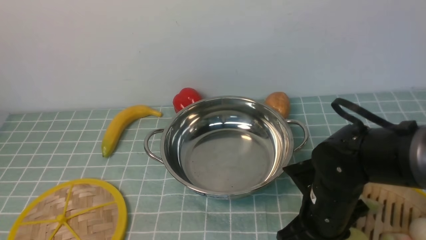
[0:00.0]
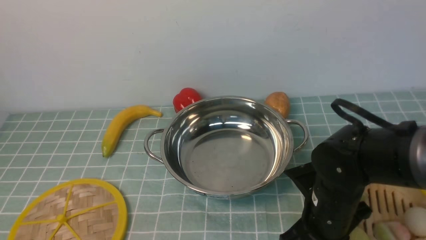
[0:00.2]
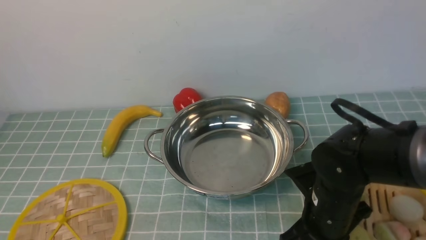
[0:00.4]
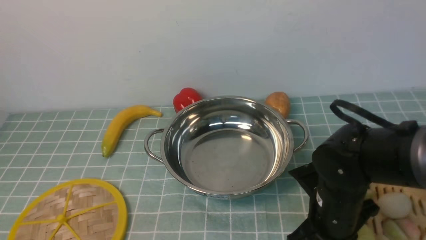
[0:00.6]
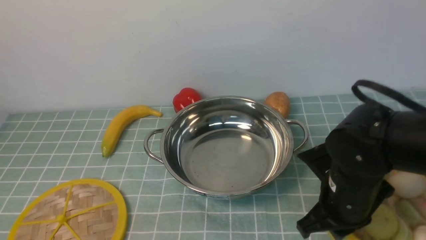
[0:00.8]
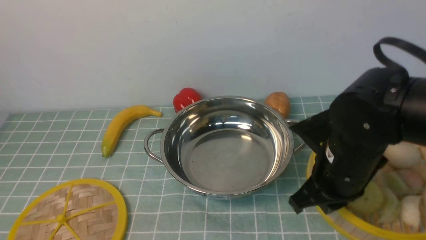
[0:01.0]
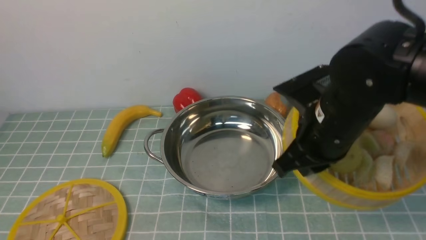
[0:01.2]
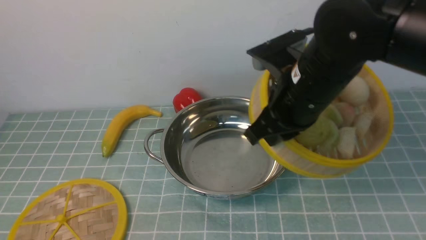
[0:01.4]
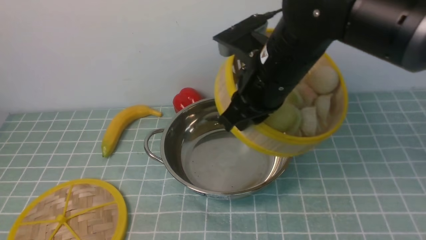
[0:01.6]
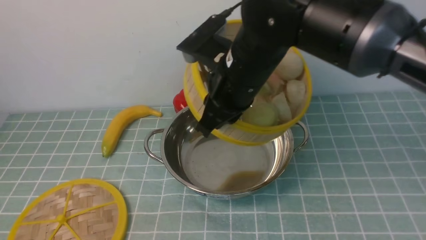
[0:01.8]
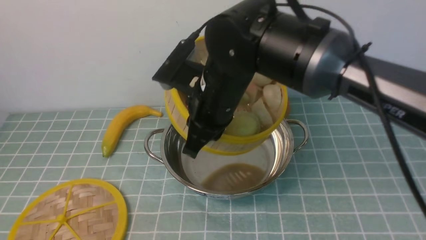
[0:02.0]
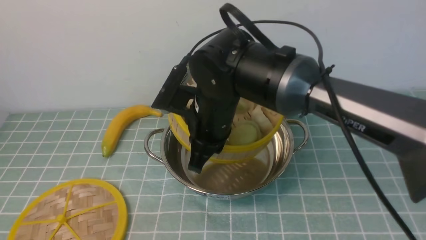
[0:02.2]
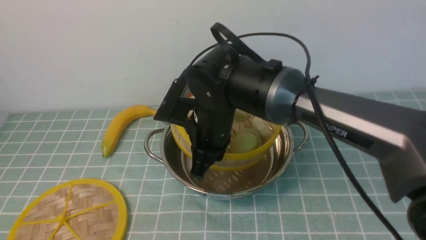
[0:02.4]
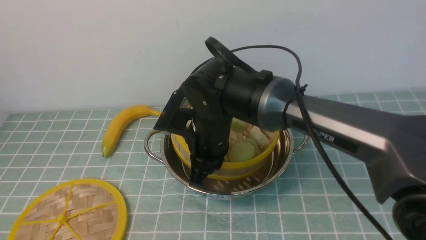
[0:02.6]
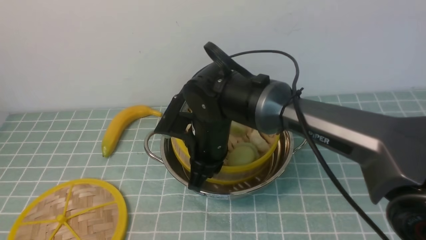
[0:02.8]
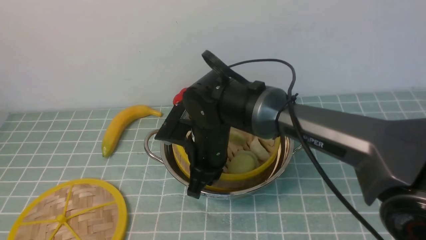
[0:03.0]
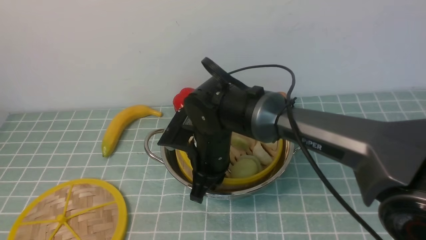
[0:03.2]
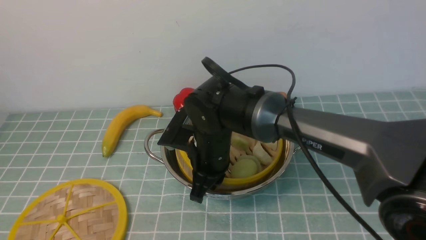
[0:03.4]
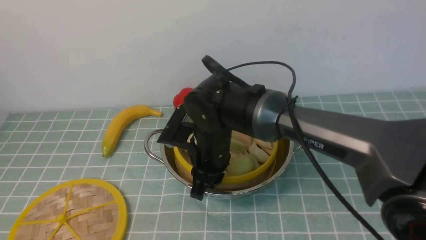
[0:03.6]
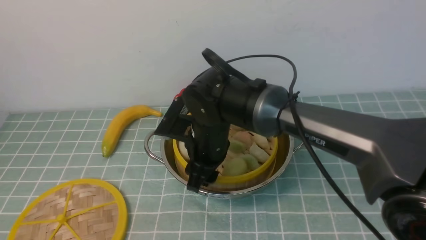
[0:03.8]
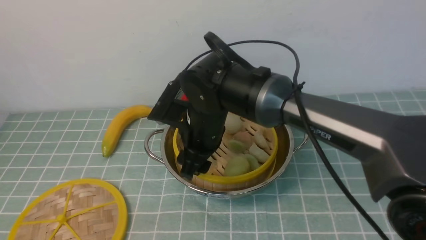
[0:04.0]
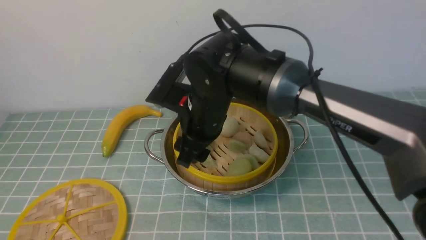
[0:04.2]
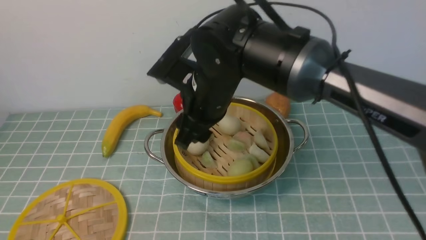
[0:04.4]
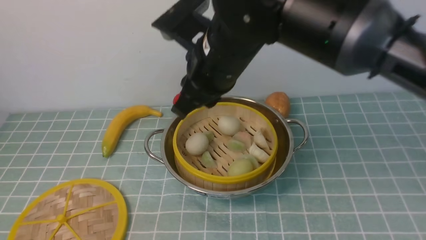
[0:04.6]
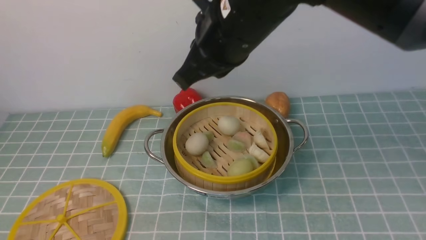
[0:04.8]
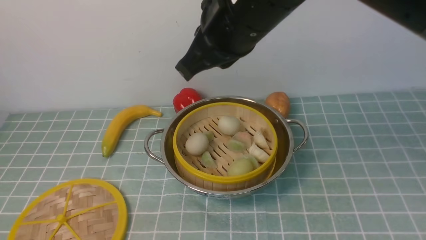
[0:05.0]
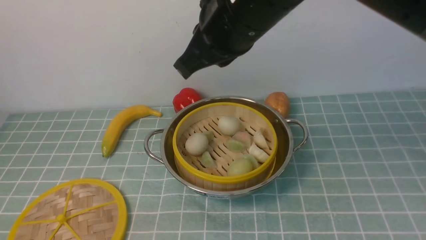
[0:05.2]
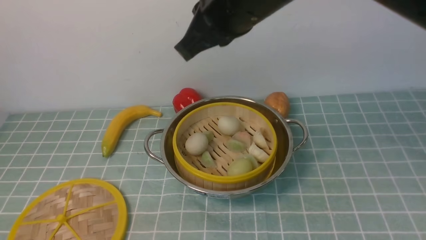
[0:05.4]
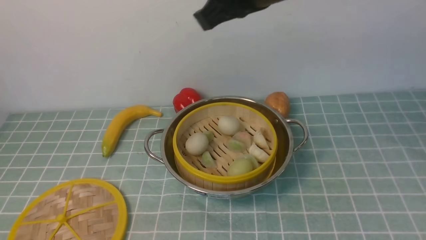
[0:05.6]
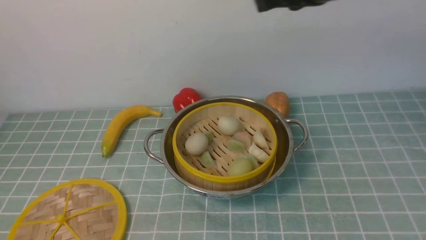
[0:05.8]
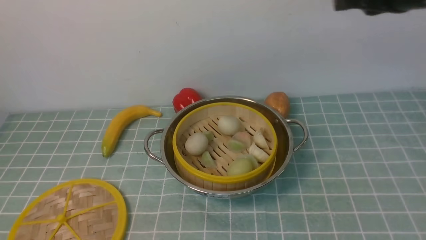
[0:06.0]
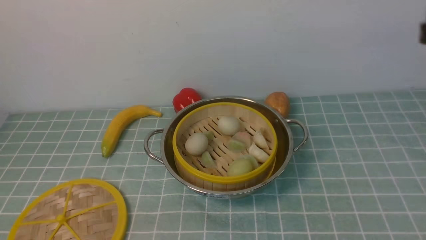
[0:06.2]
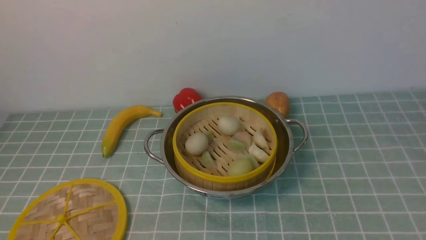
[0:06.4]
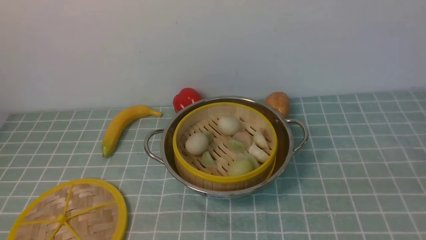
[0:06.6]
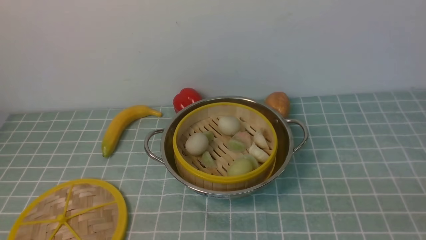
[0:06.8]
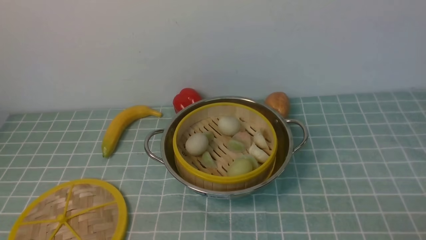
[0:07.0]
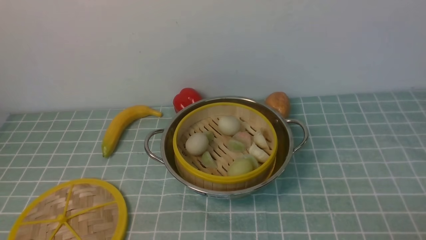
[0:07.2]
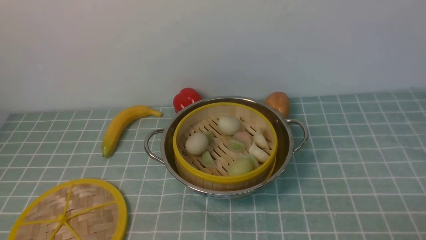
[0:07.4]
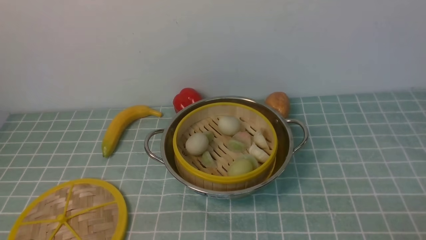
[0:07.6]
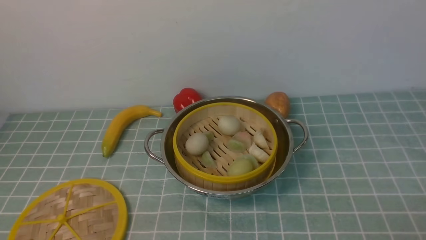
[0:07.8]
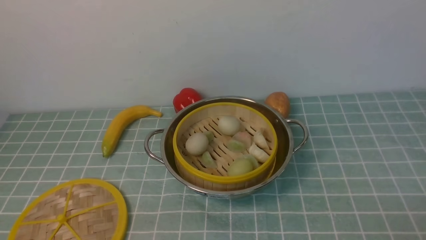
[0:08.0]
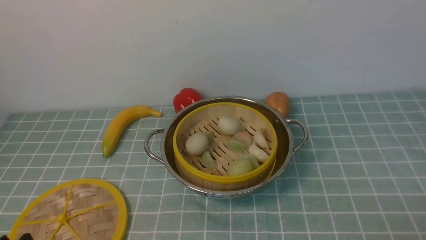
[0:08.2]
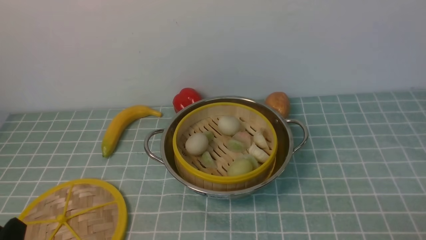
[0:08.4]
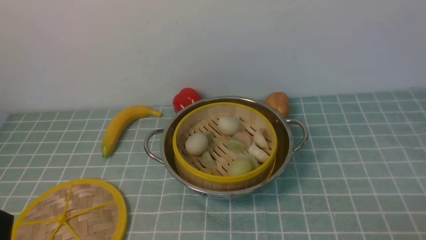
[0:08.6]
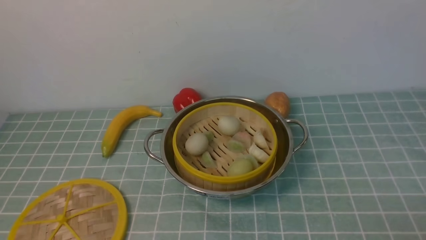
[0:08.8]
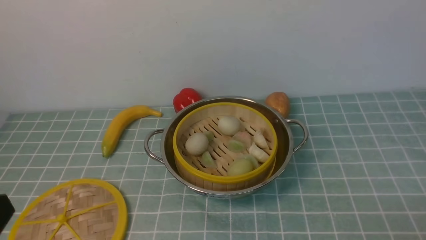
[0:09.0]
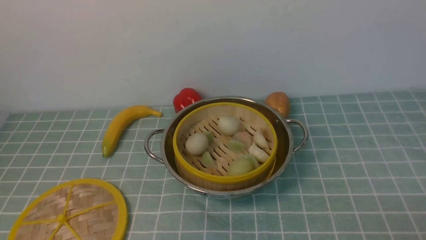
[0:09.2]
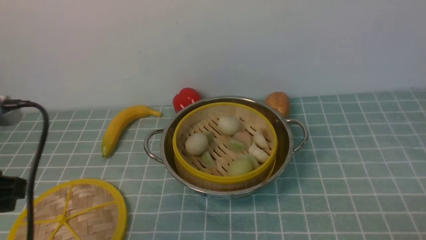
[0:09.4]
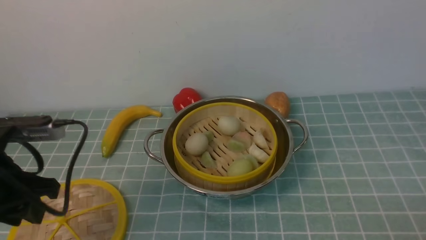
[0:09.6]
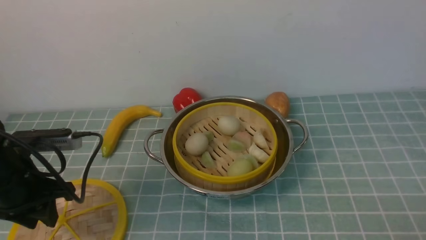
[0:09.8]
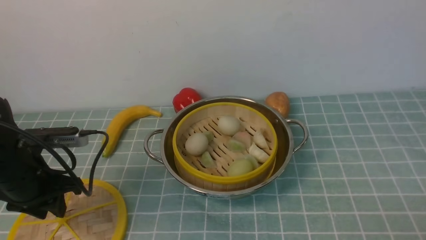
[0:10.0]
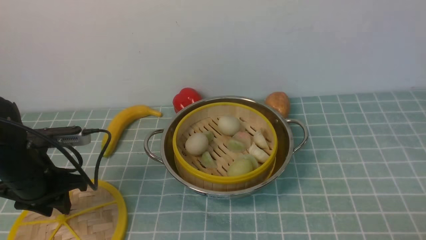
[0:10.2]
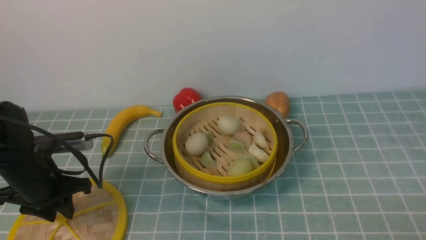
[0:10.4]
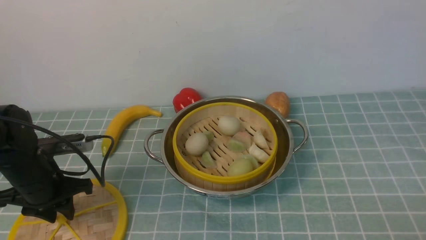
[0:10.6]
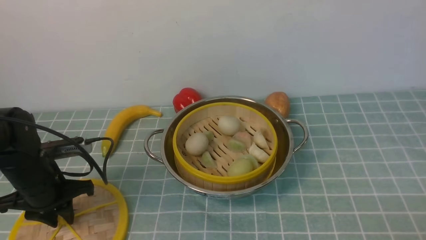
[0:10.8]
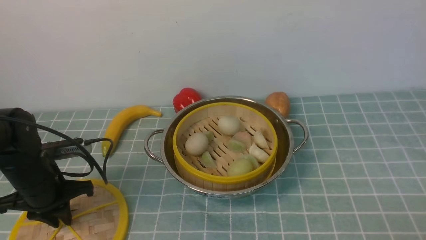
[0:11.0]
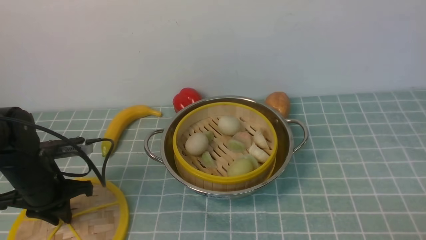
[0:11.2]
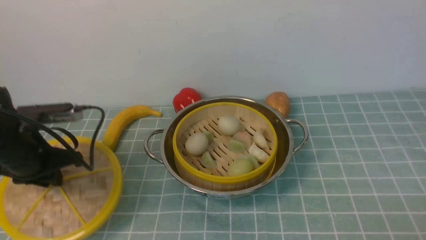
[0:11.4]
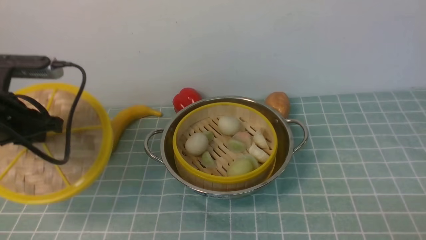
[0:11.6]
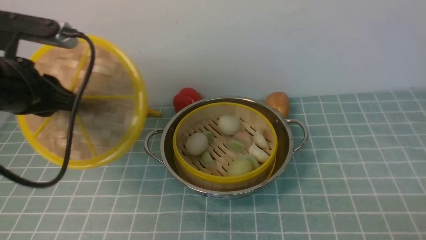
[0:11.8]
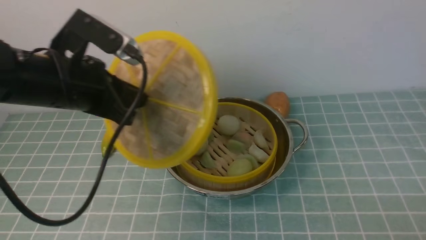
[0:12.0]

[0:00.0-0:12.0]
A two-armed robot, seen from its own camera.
Task of the whole recording: place the steamer in the pot on the blue tablecloth, and put the lid on the steamer.
Step, 0:01.2 to 0:04.2: use the right arm to put the steamer into the iron steamer pot in the middle.
Step, 0:04.4 to 0:11.6: use the left arm to lift the lid of the steamer.
0:00.0 to 0:01.6: The right gripper goes approximately 20 cm upward, to the left and forward, and closes.
0:01.6 to 0:03.0: The right gripper moves downward and to the left, approximately 15 cm.
0:03.0 to 0:04.4: The right gripper shifts about 10 cm upward, and opens its fingers.
0:04.4 to 0:06.0: The right gripper shifts roughly 25 cm to the right and upward, and closes.
0:06.0 to 0:07.6: The right gripper goes some 35 cm downward and backward, and opens its fingers.
0:09.0 to 0:10.4: The left gripper is displaced forward and downward by some 25 cm.
0:10.4 to 0:12.0: The left gripper heads upward and to the right, covering some 15 cm, and closes up.

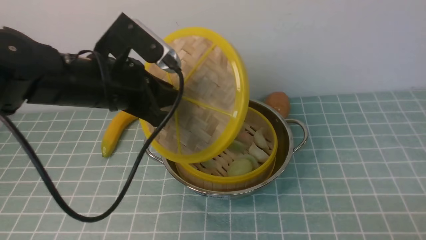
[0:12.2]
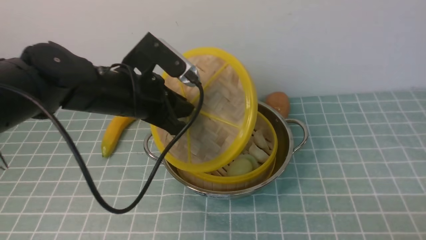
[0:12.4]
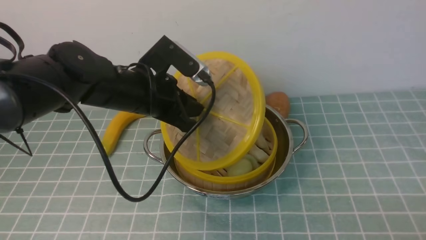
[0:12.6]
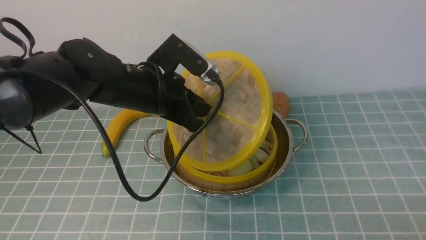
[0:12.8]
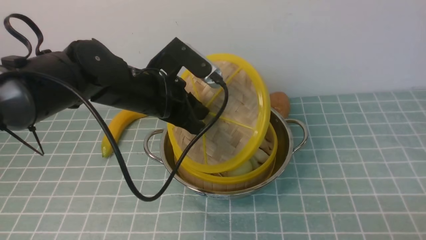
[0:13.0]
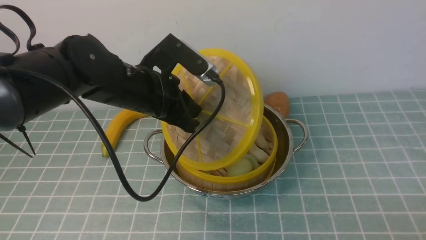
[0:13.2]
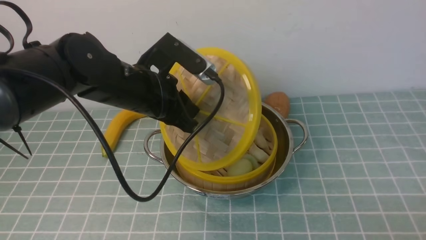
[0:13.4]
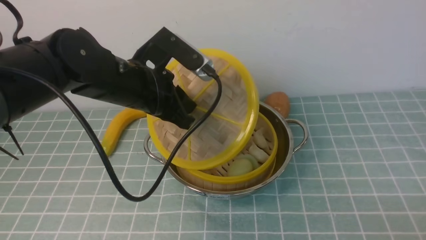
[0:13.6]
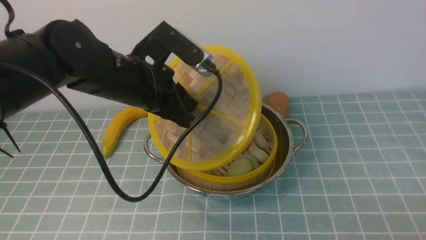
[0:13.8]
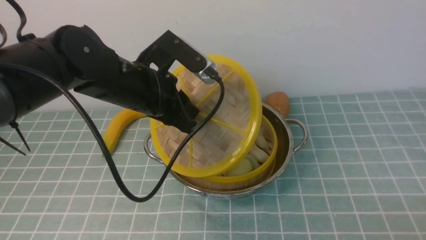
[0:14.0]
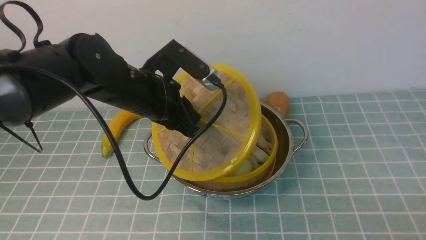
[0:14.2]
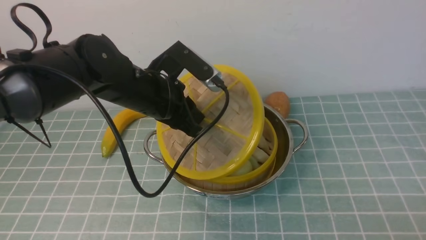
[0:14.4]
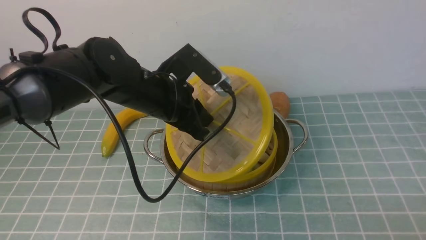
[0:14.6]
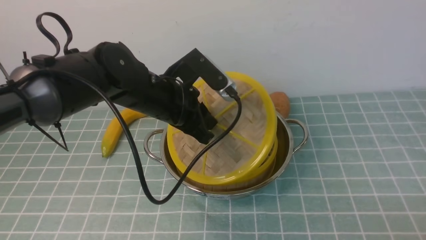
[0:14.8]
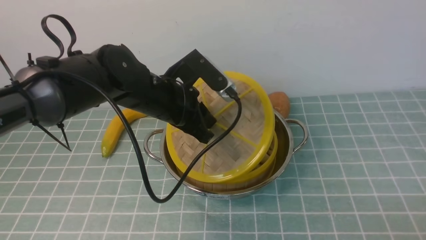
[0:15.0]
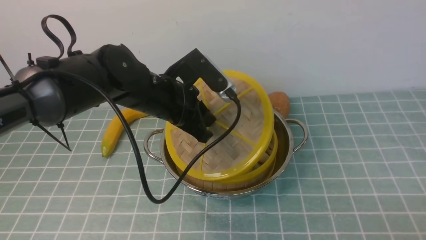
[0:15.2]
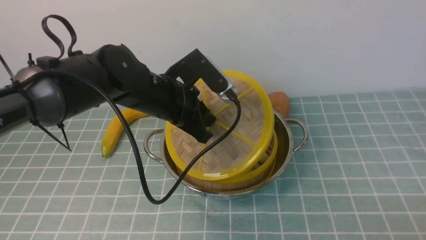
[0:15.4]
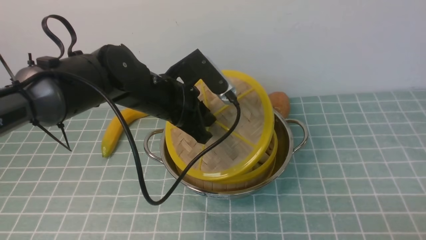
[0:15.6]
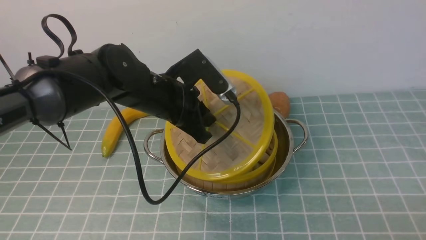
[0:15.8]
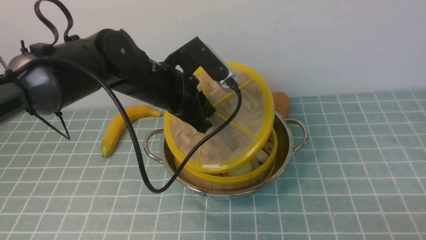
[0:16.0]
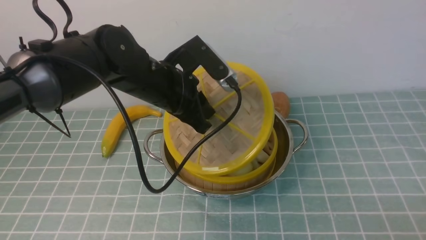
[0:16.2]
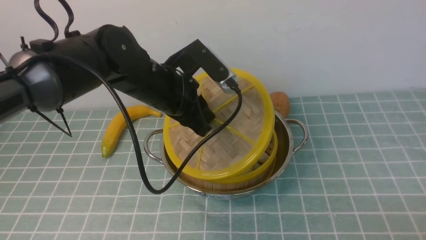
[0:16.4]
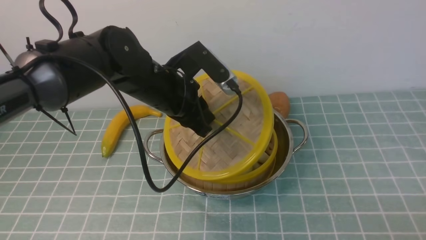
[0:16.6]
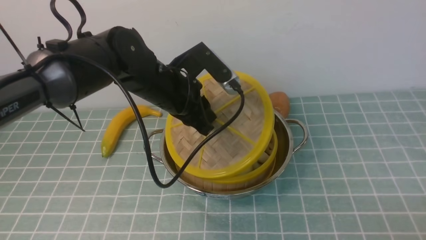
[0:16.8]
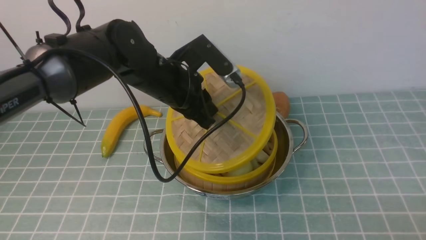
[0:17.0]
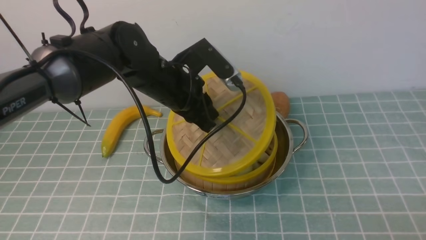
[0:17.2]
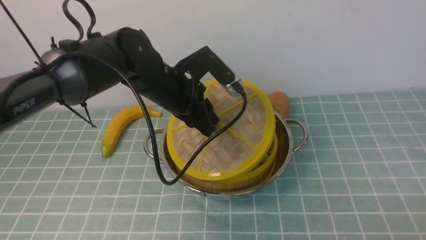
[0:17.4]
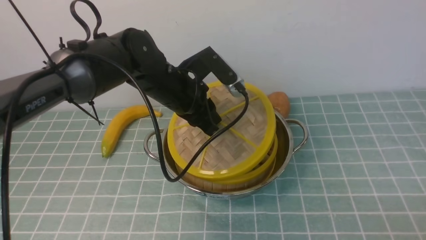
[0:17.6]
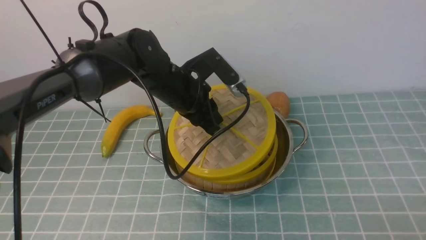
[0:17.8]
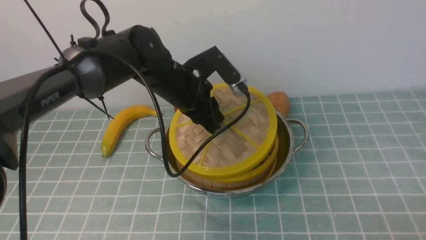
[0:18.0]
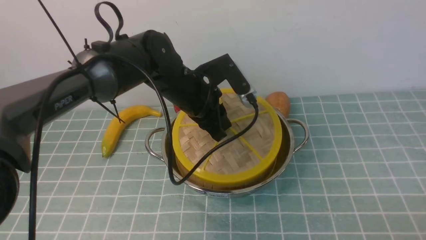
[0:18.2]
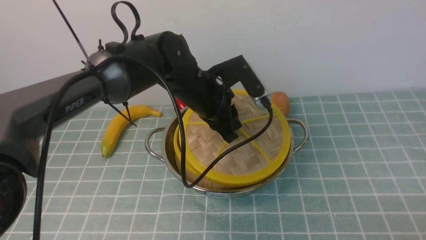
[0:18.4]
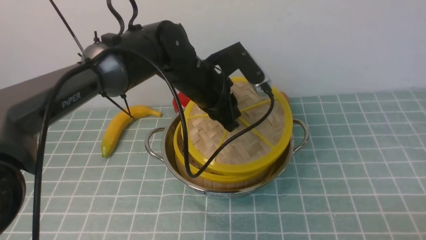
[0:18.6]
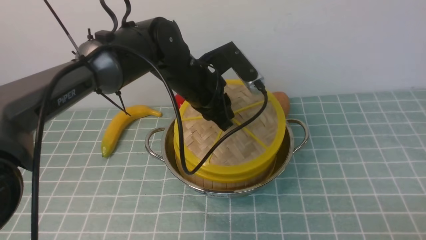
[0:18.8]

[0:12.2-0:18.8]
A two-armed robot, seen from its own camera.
Task of the whole recording: place the steamer in the pot on the blue tablecloth, and put the lid on the steamer.
0:13.8 to 0:15.4: The left gripper shifts by about 5 cm.
0:15.4 to 0:17.2: The grippers move only a little.
